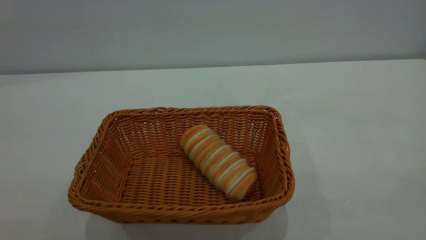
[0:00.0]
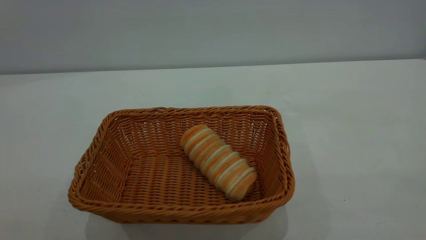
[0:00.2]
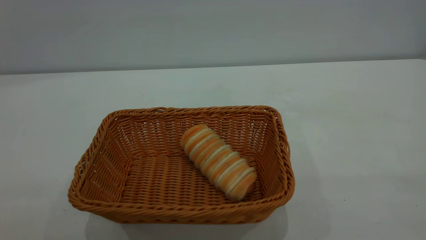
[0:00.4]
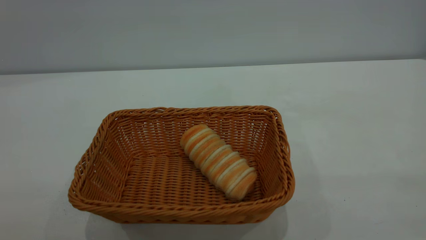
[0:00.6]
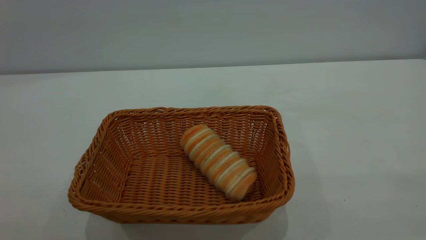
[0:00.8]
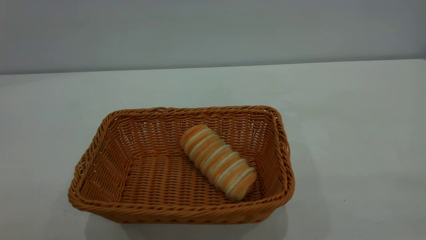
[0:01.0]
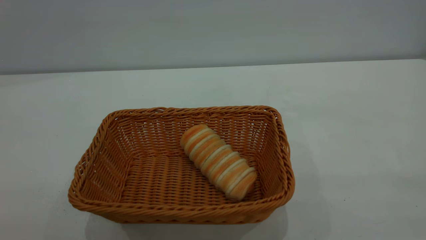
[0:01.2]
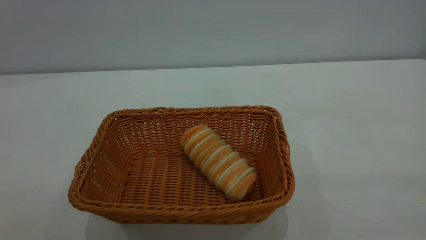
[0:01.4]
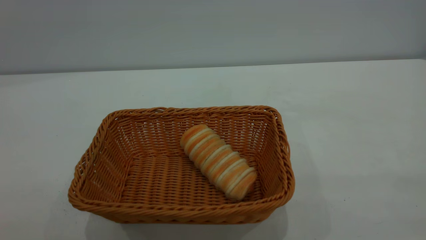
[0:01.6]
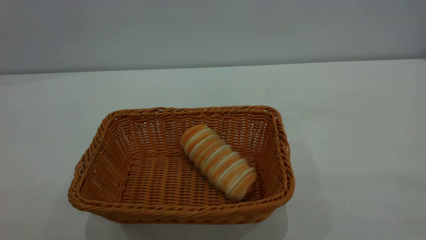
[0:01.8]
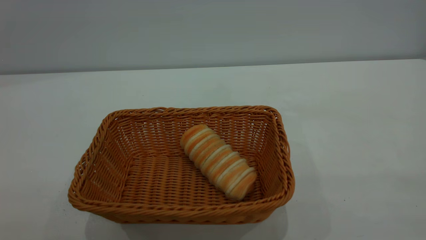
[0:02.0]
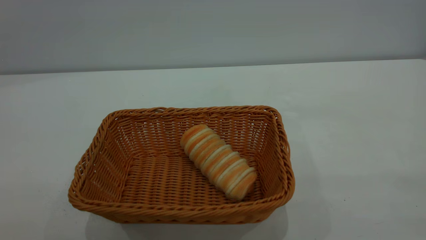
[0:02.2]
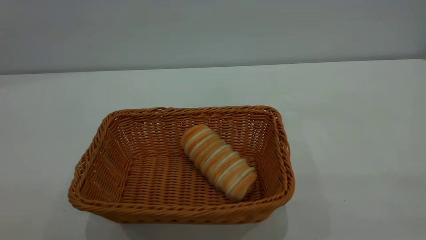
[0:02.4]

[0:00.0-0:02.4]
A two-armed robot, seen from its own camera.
Task of the whole recording: One hand grasps the yellow basket and places it in the middle of the table, while the other hand picks up the long bread and puts it into the yellow basket.
0:01.2 to 0:02.4: Neither gripper changes place.
